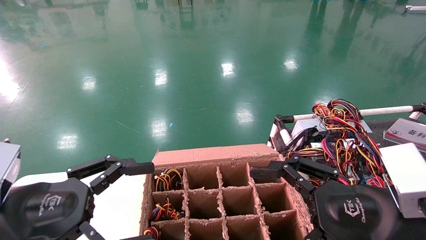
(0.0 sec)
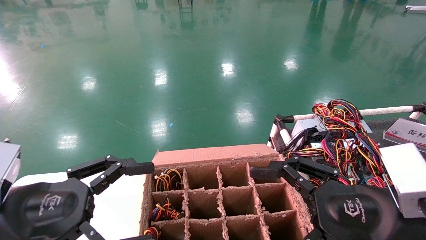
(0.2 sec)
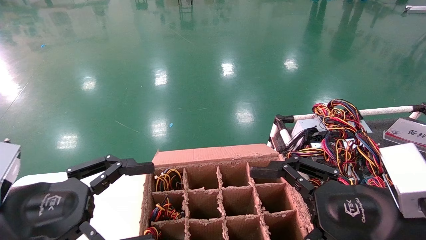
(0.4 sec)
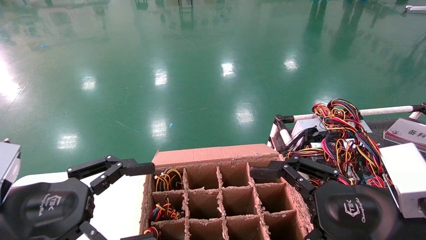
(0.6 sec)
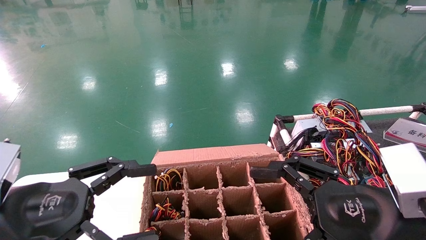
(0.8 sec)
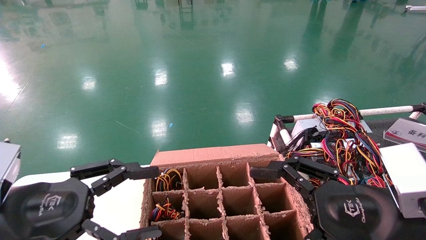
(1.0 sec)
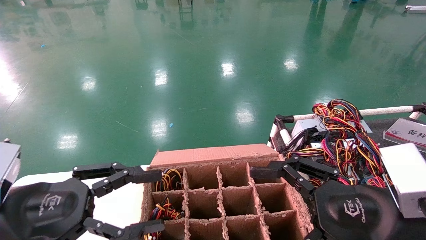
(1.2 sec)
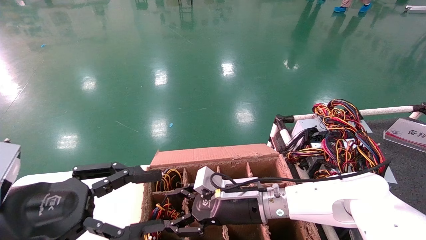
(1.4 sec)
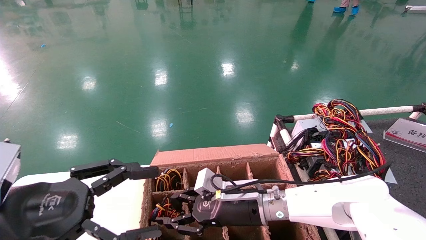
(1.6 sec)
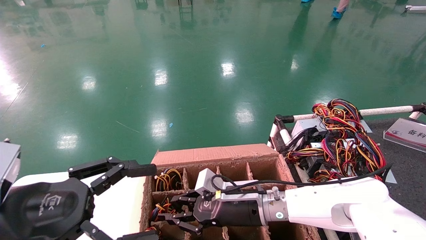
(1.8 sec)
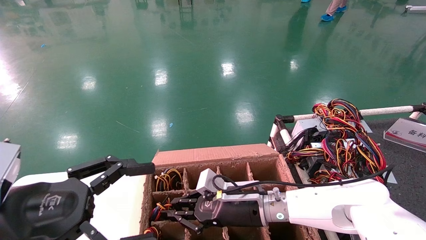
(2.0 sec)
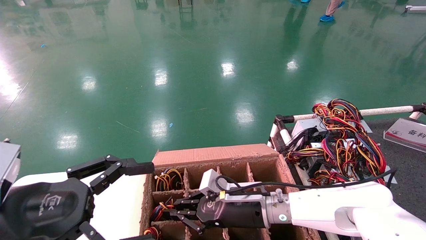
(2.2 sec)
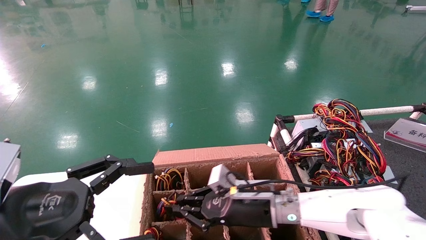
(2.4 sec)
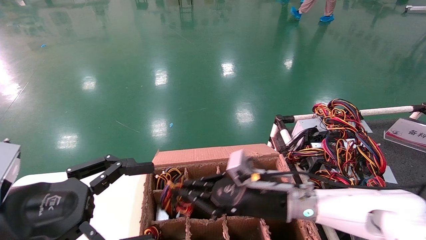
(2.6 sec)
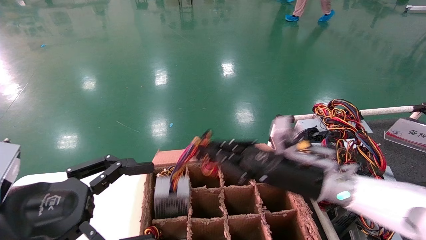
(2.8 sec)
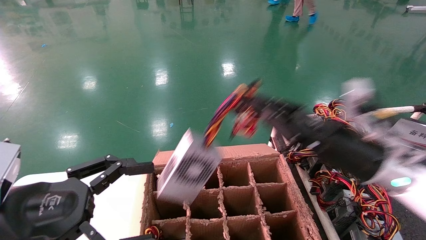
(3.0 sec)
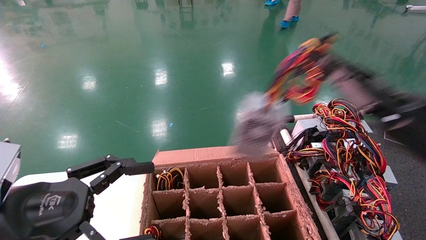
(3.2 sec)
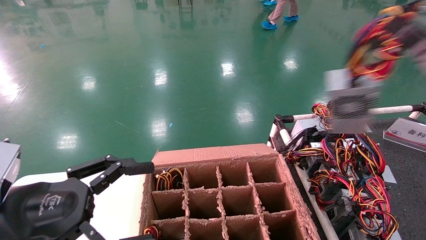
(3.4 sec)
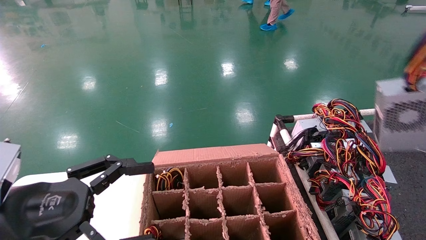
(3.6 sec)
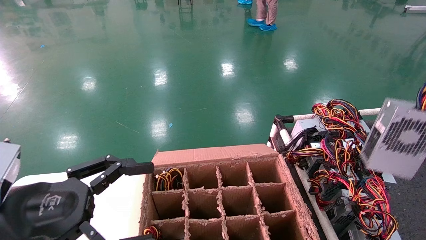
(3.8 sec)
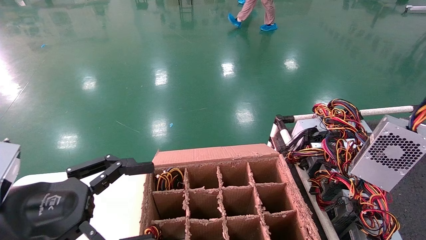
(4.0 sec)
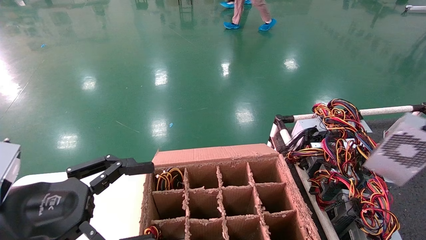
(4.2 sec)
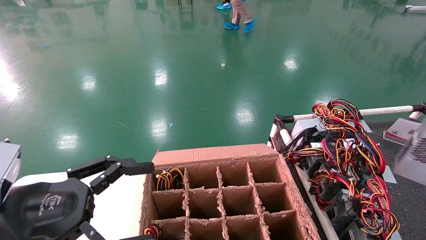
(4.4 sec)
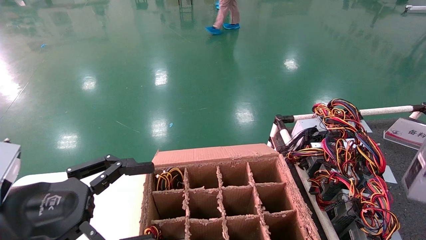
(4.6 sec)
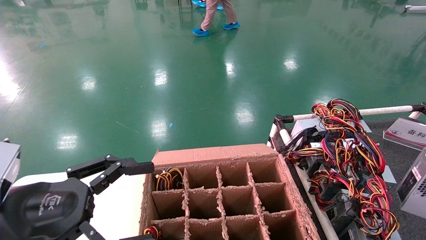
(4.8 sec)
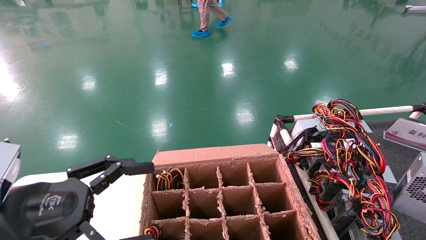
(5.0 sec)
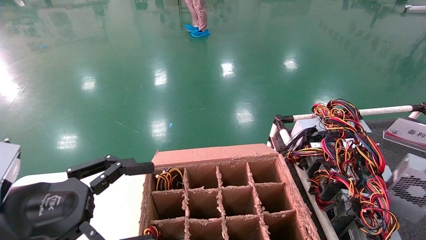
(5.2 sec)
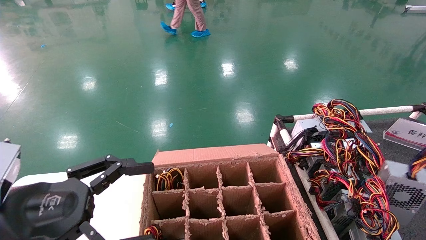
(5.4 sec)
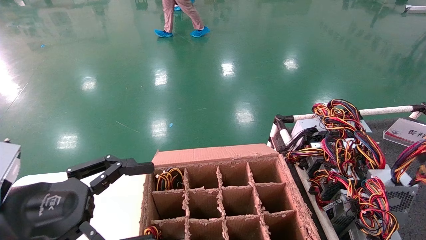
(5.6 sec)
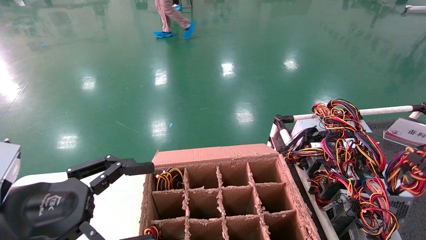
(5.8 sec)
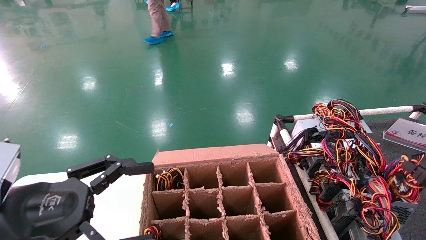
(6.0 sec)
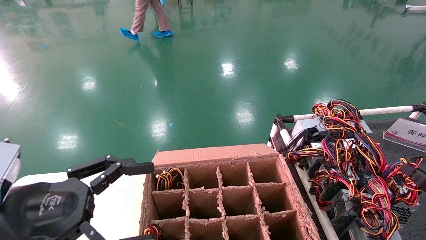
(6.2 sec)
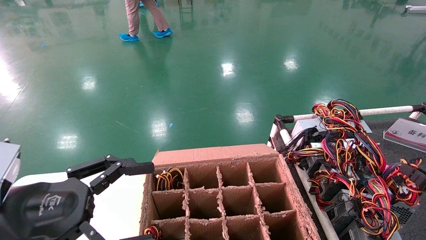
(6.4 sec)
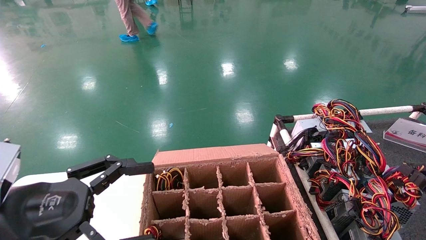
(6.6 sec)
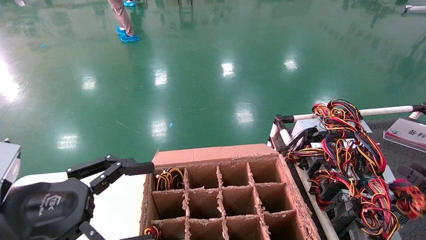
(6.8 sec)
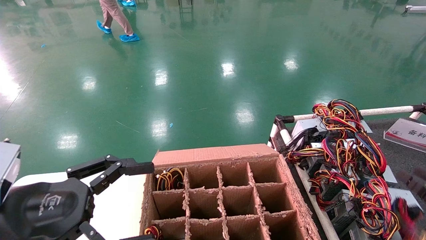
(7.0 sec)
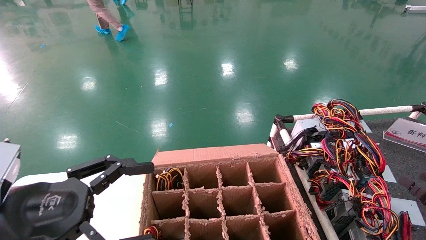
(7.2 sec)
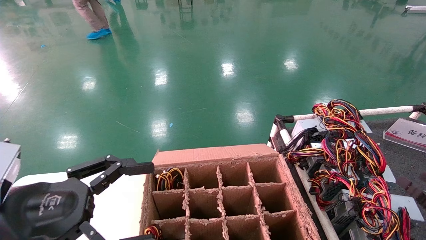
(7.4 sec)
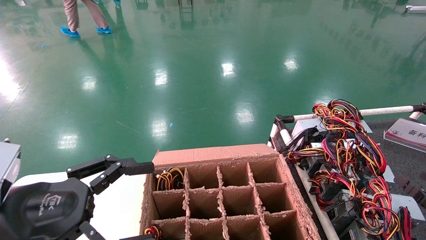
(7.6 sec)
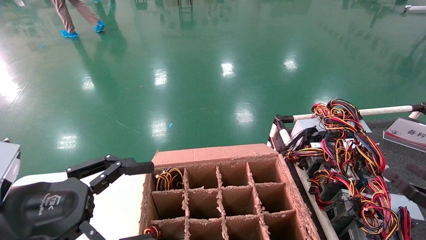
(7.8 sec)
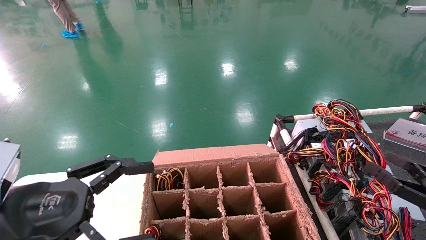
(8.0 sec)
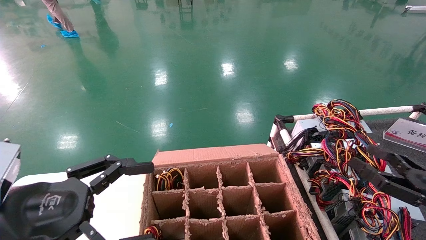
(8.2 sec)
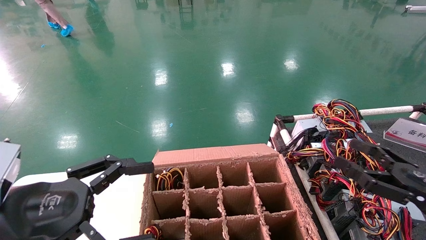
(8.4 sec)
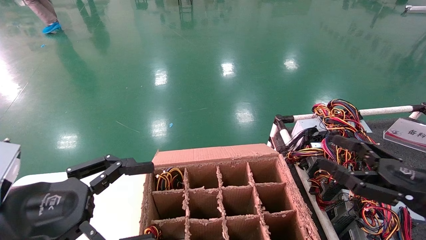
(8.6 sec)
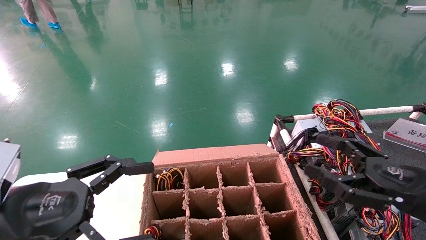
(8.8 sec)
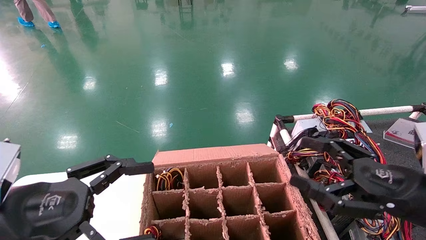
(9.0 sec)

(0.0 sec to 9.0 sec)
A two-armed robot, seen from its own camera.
Step, 1.8 sec - 4.6 sec: Grab and lift the power supply from the large box.
Step, 4.8 sec - 8.4 sec: Place the power supply on the operating table.
0.0 sec - 1.6 sec: The left gripper closes.
1.6 sec - 3.0 sec: The right gripper is displaced to the left, forward and downward by approximately 25 cm, while the left gripper closes.
3.0 sec - 4.4 sec: The right gripper closes up. The left gripper opens.
4.4 sec - 6.0 sec: The right gripper travels to the right and backward by approximately 50 cm.
6.0 sec - 7.6 sec: The right gripper heads downward, covering about 10 cm.
7.6 sec - 9.0 sec: The right gripper ends up approximately 5 cm from where it was.
